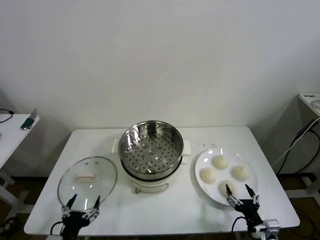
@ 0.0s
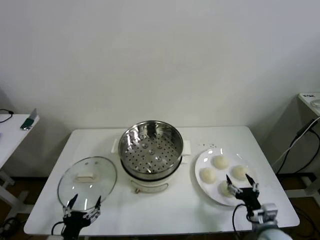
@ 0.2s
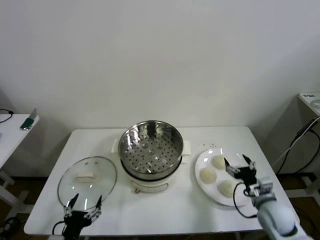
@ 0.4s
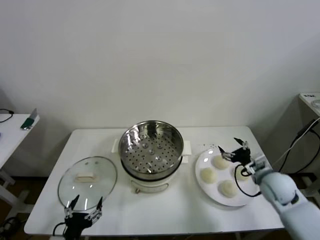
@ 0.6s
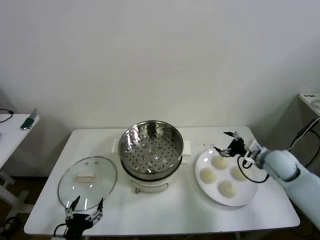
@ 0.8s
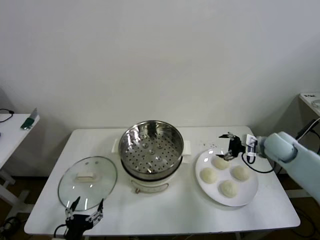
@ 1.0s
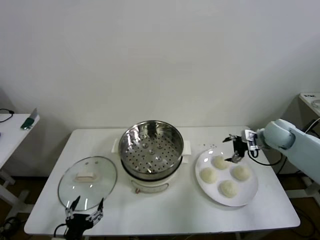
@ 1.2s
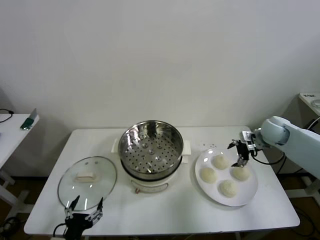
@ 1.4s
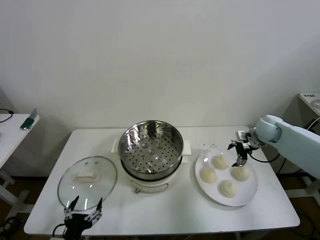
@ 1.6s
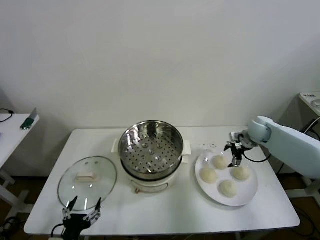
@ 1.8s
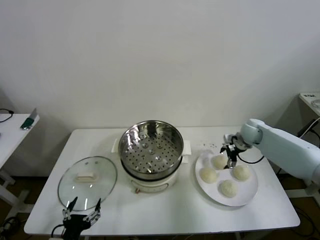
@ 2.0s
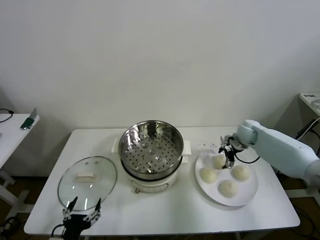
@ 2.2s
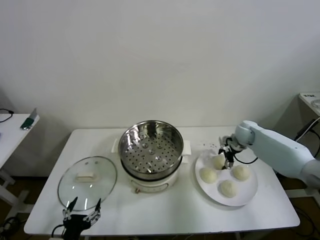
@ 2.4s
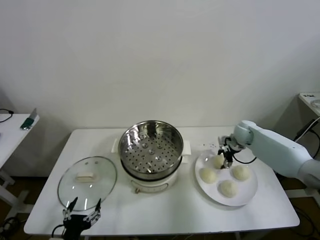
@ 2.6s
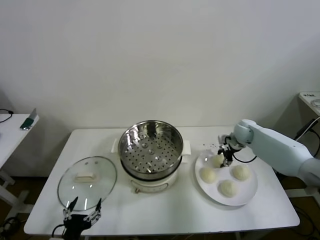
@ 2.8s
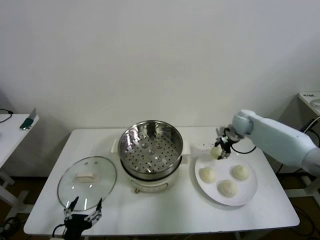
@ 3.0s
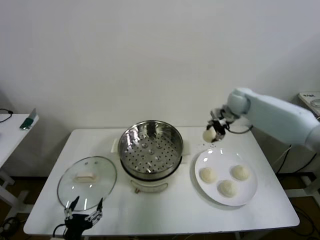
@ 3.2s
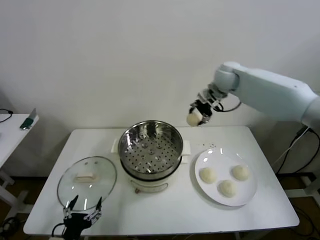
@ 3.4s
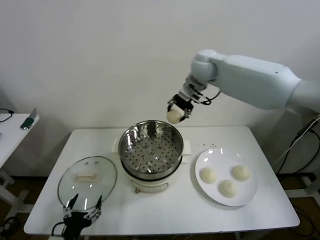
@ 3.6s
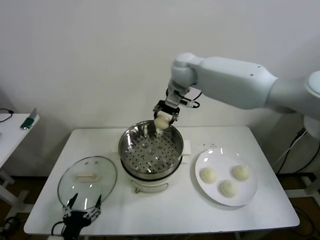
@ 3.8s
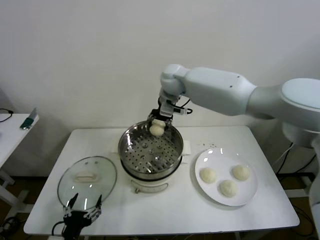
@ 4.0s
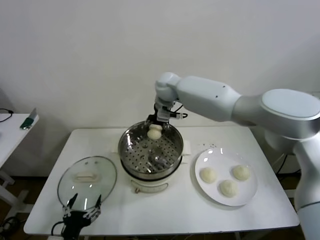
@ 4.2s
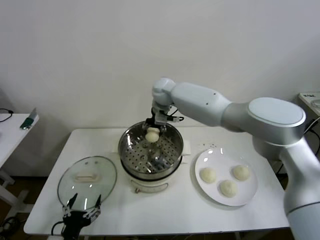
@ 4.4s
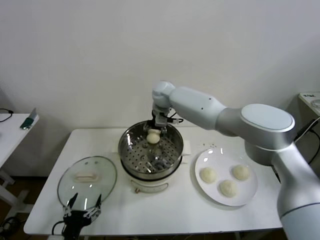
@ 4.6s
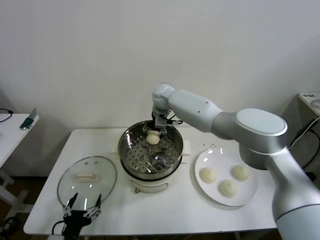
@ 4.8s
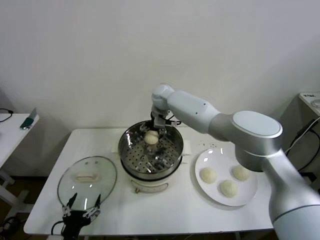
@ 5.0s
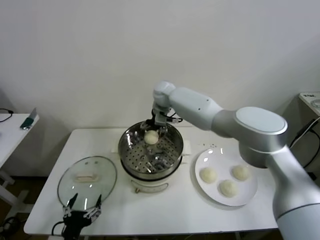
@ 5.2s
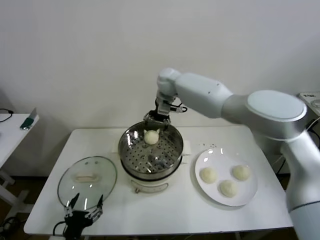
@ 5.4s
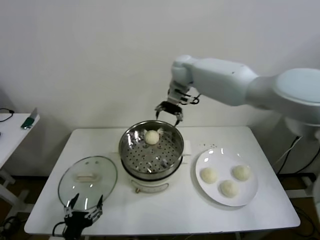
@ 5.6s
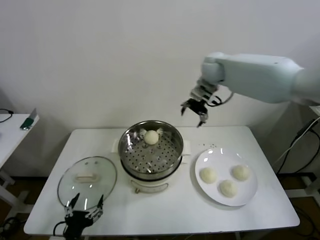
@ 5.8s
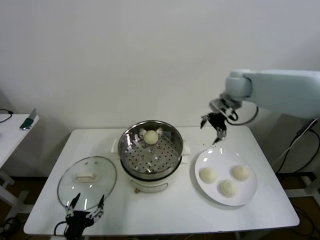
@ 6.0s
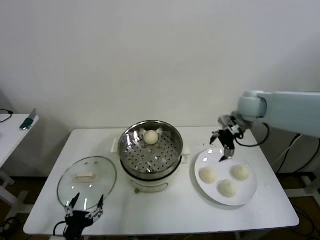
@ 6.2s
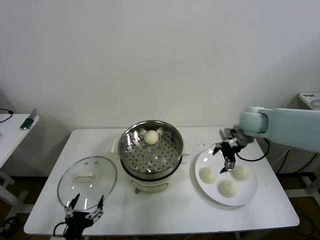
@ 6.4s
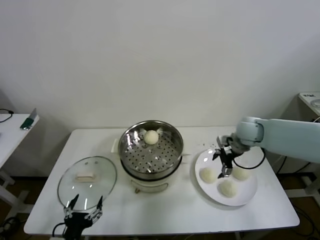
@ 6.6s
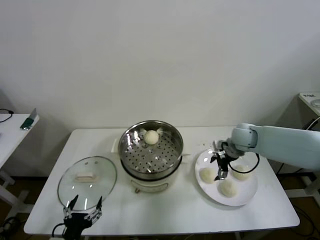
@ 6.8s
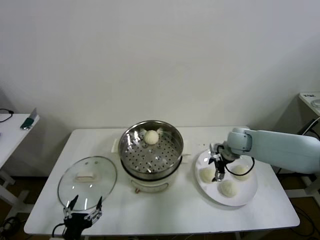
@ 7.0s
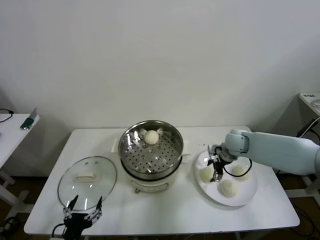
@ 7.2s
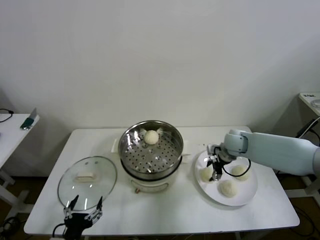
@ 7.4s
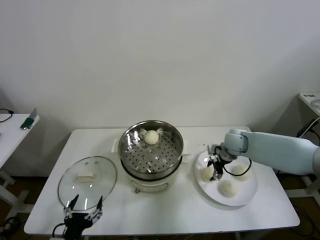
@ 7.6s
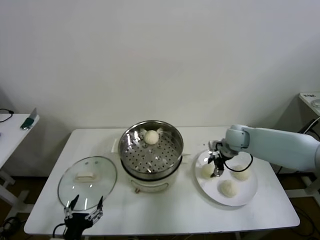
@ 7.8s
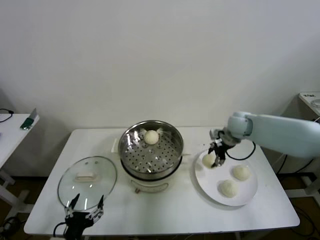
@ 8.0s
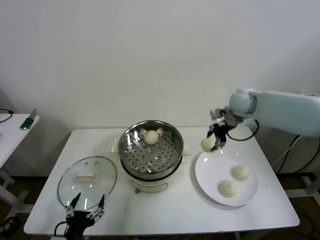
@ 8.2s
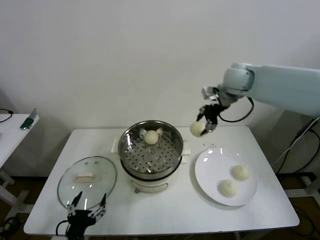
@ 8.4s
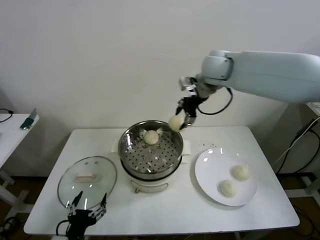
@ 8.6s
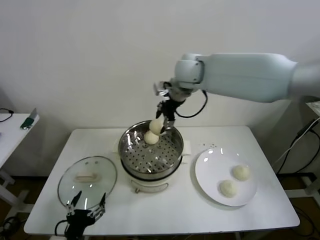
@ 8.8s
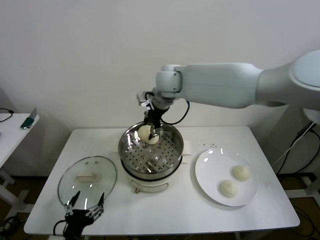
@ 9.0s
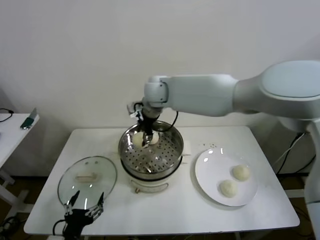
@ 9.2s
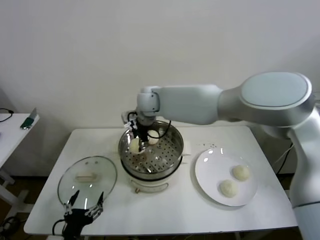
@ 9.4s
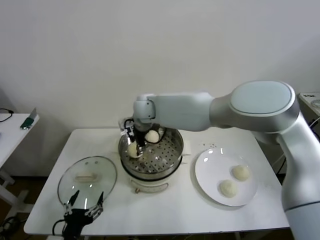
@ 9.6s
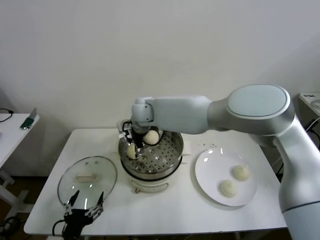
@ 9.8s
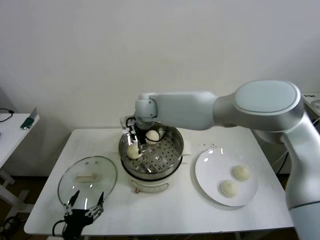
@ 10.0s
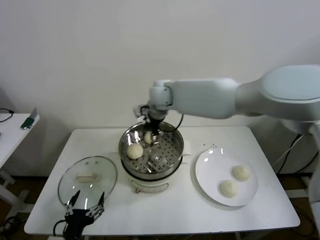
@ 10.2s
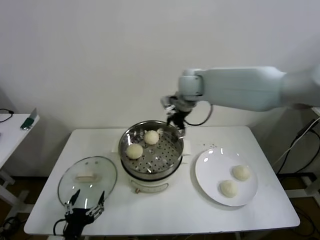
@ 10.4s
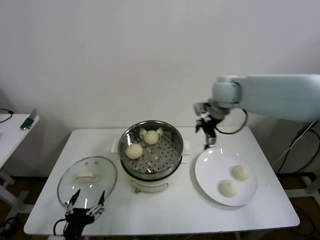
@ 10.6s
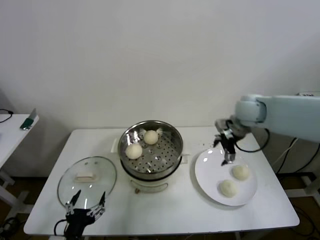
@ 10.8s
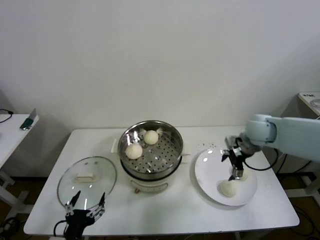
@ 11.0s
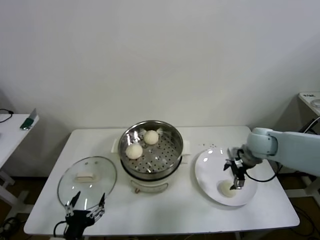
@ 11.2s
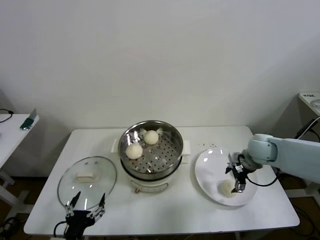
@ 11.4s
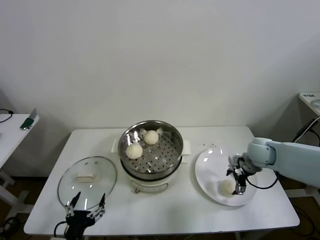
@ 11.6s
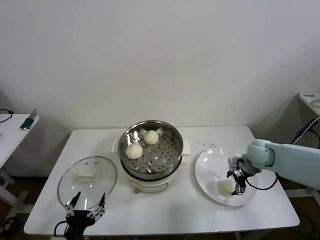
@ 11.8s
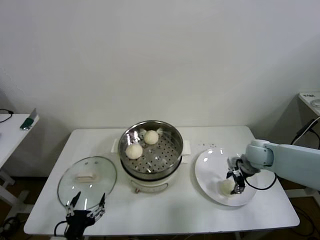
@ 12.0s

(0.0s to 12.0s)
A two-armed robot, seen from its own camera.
Step, 0.0s - 2.6s: Grasp the baozi in the plate with right gripper.
Step, 2.8s - 4.8s: Place the baozi on the steamer with right gripper.
Step, 5.0s - 7.4s: Grasp the baozi in the plate with right gripper.
Step, 7.6s - 9.6s: Place the baozi on the steamer with right gripper.
1.6s - 3.0s: The right gripper shifts roughly 10 cm to the left and forward, and closes up.
3.0s - 4.4s: The right gripper shifts about 30 cm to the left.
4.4s - 6.0s: The right gripper is displaced to the right by approximately 25 cm, and opens.
6.0s - 7.6s: The right gripper is displaced downward by roughly 20 cm, and closes up.
7.6s - 9.0s: The right gripper heads to the left and upward, covering approximately 35 cm.
9.0s - 10.4s: The right gripper travels to the right by some 15 cm, and opens up.
10.4s - 12.0s: The right gripper shifts approximately 30 cm downward, to the right and backward, and closes.

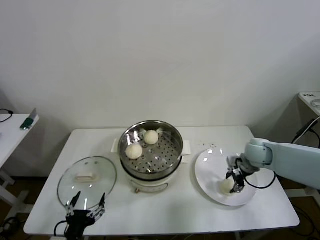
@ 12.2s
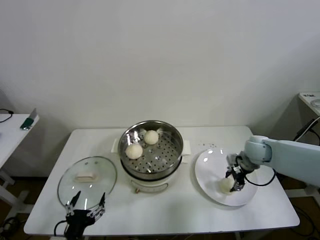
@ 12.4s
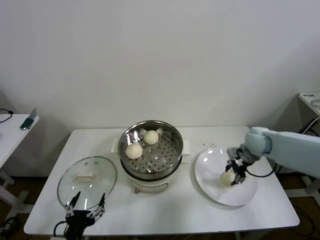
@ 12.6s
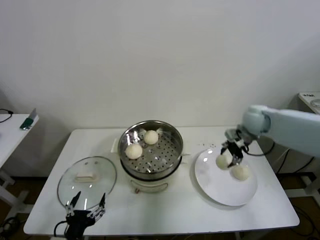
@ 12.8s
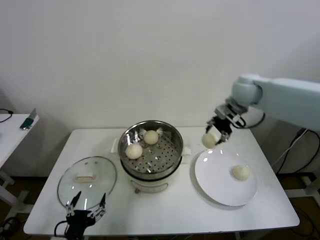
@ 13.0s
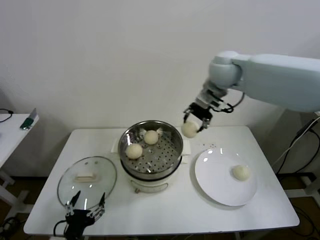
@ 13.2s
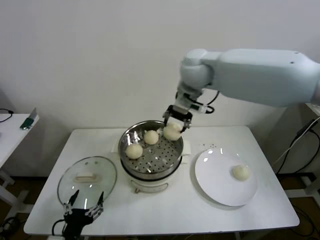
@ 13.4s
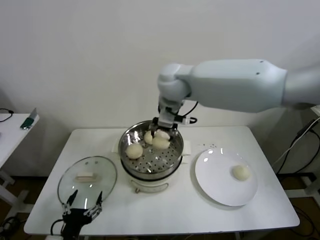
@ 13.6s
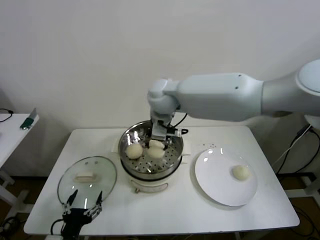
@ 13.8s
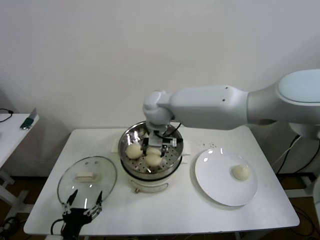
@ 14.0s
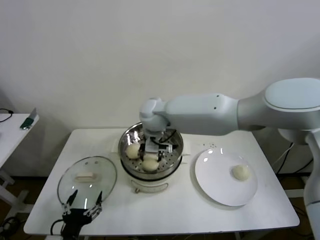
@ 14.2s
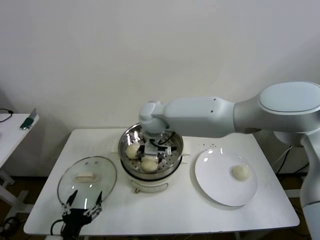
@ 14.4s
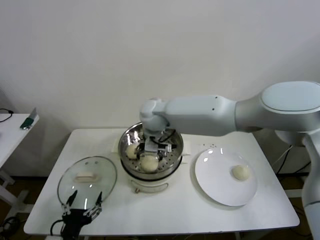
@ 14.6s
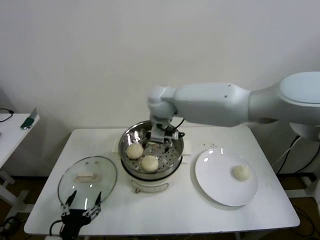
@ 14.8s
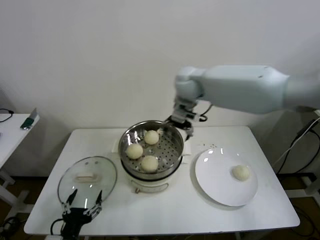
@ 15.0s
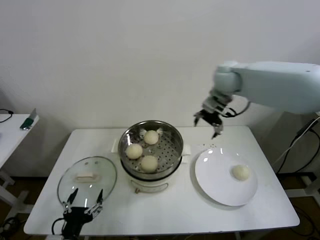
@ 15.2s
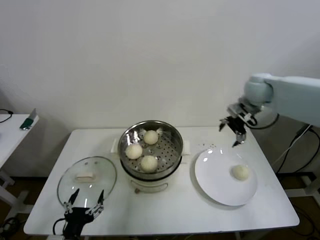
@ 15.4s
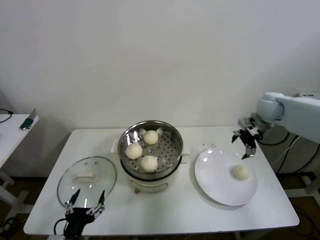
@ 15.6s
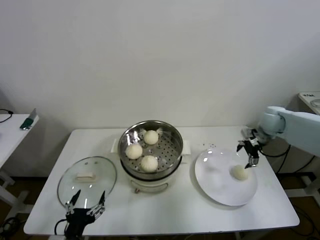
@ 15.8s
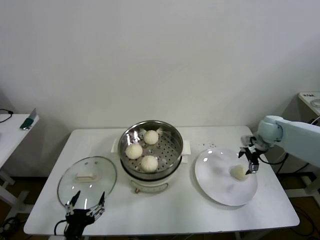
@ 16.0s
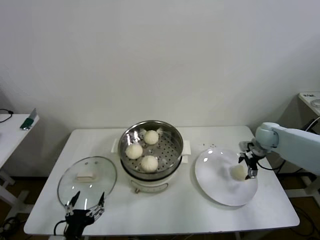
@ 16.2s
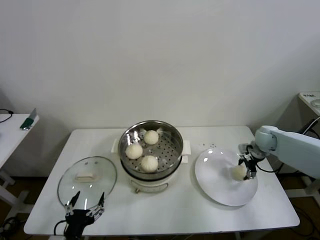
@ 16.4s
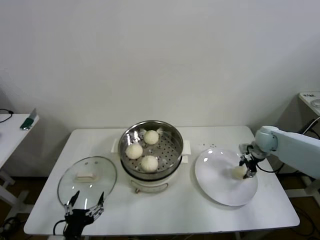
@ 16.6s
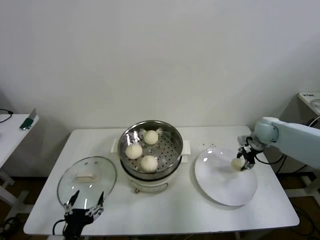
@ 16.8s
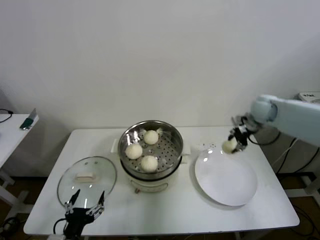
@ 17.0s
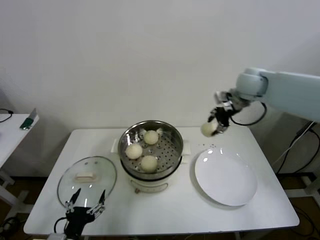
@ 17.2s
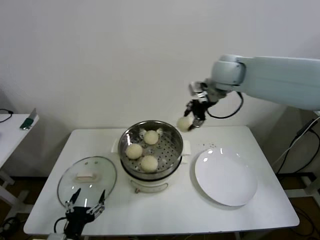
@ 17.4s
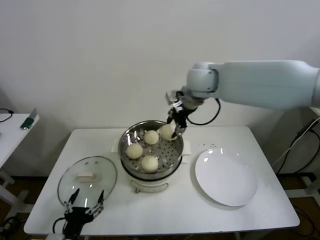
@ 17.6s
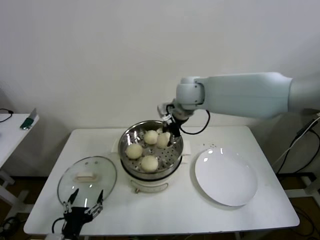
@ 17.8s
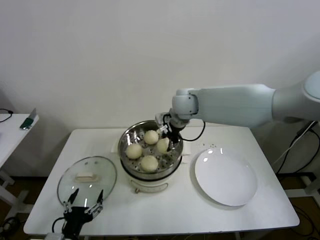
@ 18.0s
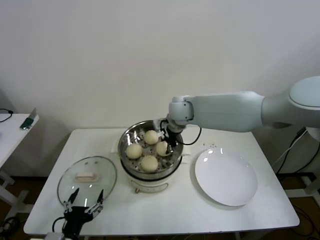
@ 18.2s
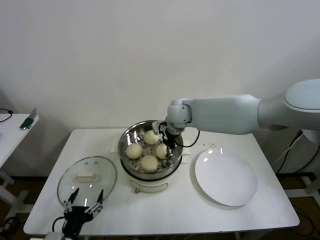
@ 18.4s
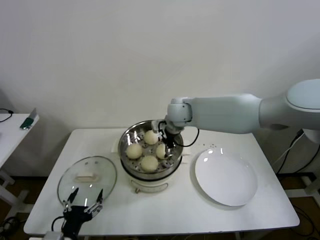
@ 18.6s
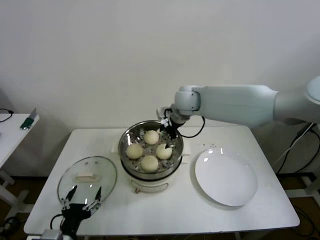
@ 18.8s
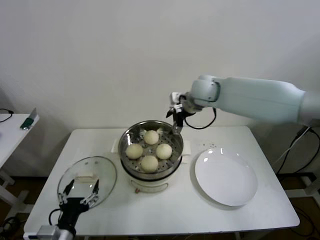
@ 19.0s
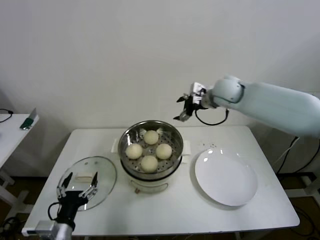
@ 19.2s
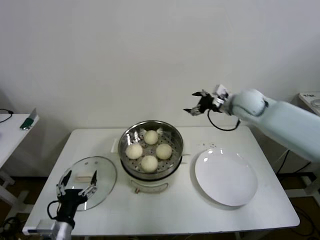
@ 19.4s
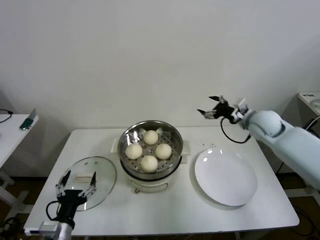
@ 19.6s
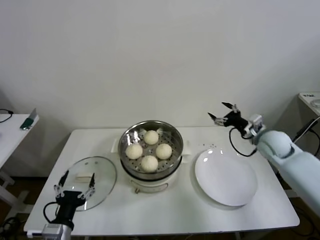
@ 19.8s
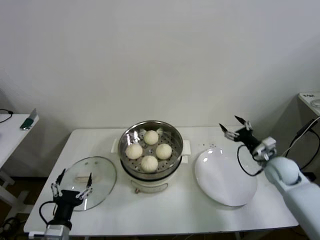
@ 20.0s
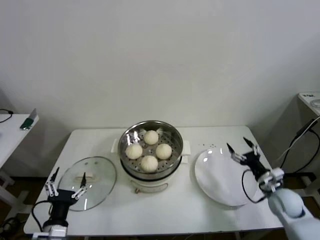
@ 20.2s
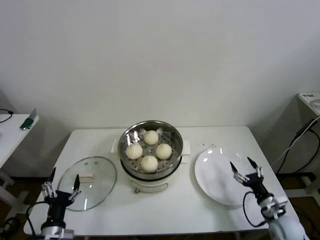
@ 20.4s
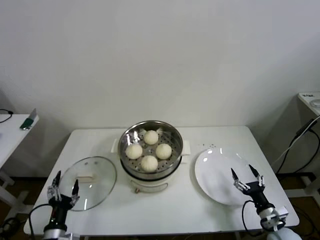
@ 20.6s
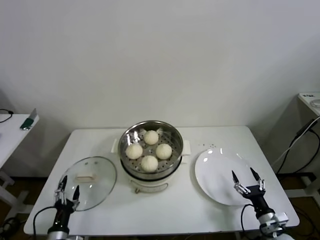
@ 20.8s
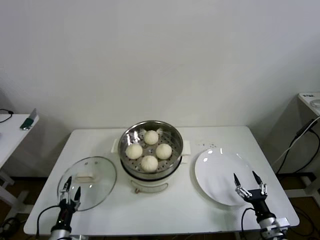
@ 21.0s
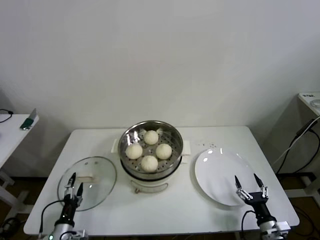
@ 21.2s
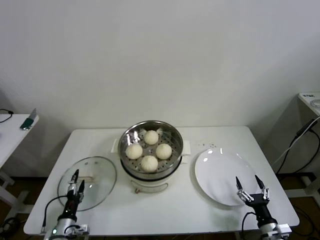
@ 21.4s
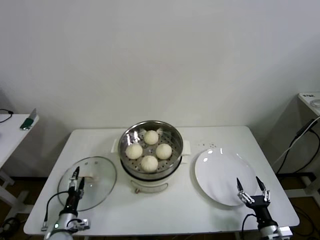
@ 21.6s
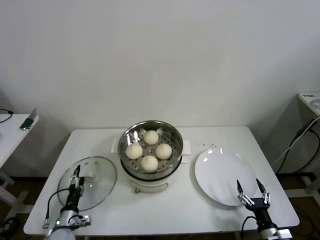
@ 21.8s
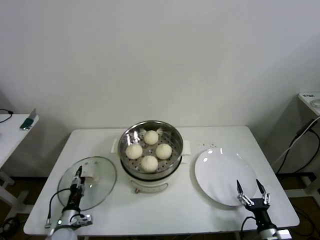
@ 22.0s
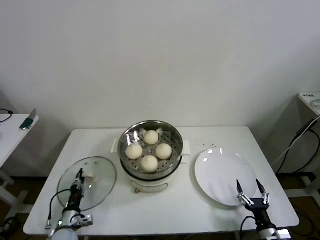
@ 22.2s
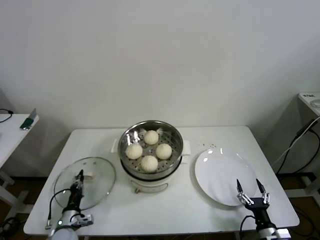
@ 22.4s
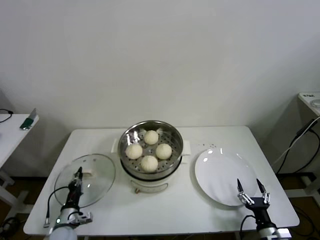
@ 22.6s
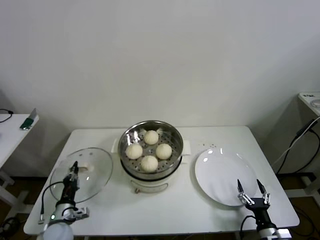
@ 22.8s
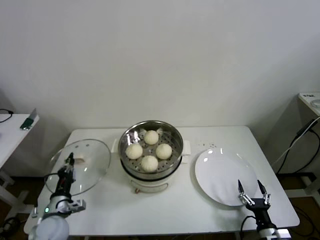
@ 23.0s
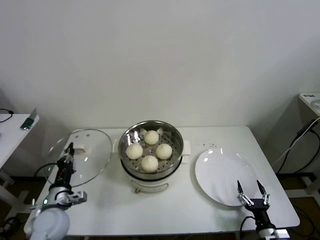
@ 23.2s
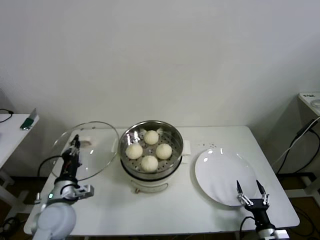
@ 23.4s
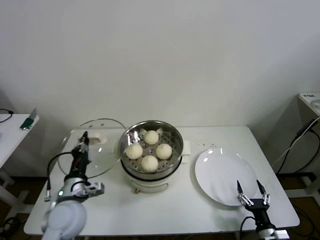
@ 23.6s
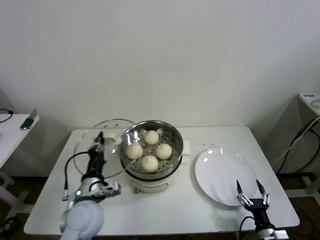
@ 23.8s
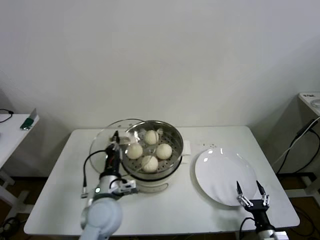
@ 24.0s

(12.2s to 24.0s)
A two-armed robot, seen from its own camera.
Step, 12.4s - 14.4s: Place the baozi on the steamer with right gripper.
Step, 14.6s - 16.4s: Grasp the baozi in the plate with right gripper.
Step, 16.6s - 18.4s: Place the baozi on the steamer with right gripper.
Step, 18.6s - 22.4s: Grasp the pot lid with left gripper.
12.2s - 13.6s: The right gripper is displaced to the left and upward by roughly 40 cm.
13.6s - 15.2s: The right gripper goes approximately 20 cm to the right, and opens.
15.2s - 16.6s: The right gripper travels downward and to the right by some 30 cm, and closes its fingers.
16.6s - 18.2s: The right gripper shifts some 35 cm to the left and upward.
18.2s - 19.6s: The right gripper travels to the right by roughly 25 cm, and opens up.
19.6s - 21.0s: The left gripper heads downward and to the left, covering about 15 cm, while the right gripper is displaced backward and downward by some 40 cm.
21.0s - 22.6s: The left gripper is displaced forward by some 10 cm, and closes.
22.6s - 24.0s: The left gripper is displaced upward and to the right by about 25 cm.
